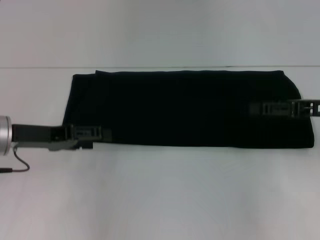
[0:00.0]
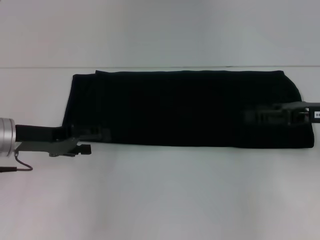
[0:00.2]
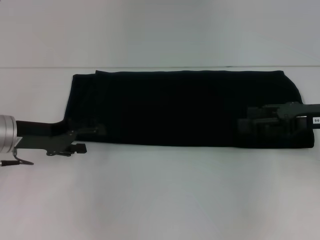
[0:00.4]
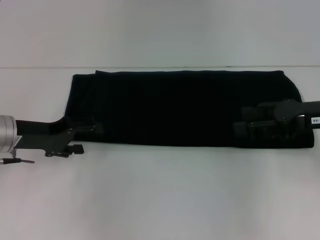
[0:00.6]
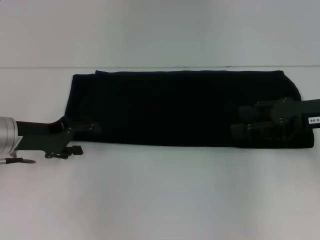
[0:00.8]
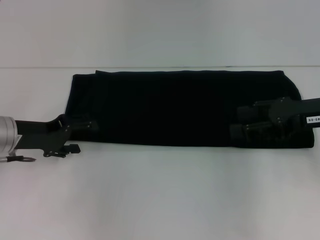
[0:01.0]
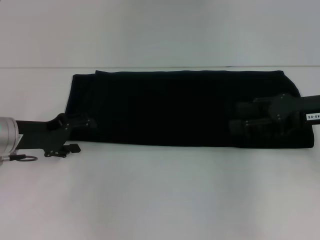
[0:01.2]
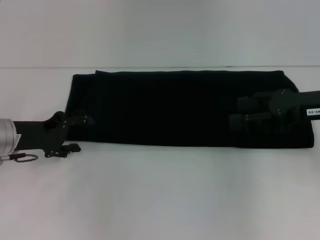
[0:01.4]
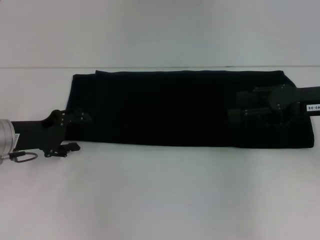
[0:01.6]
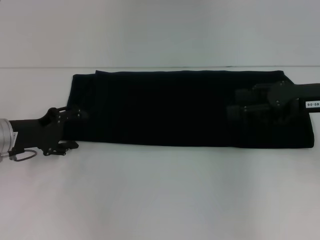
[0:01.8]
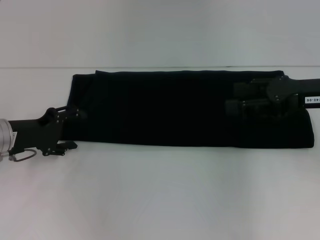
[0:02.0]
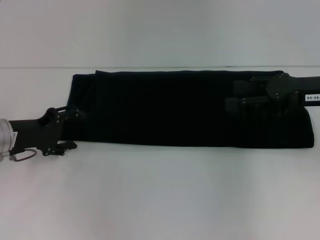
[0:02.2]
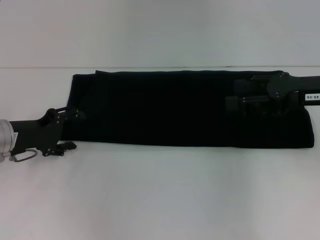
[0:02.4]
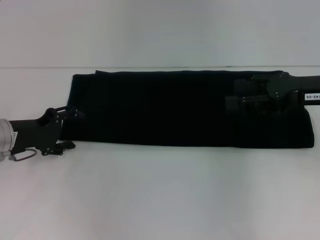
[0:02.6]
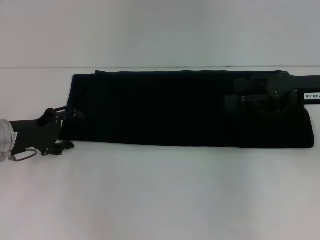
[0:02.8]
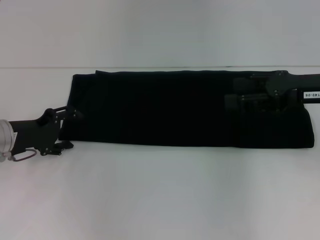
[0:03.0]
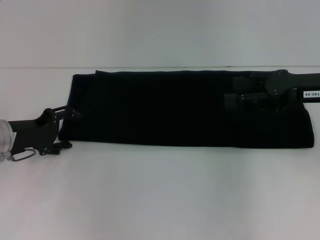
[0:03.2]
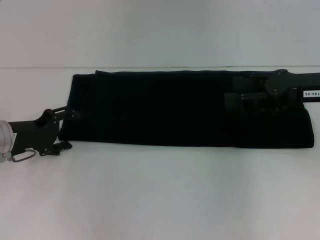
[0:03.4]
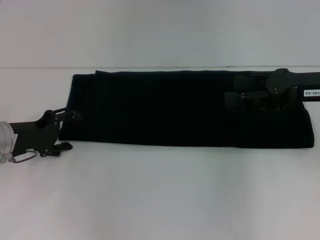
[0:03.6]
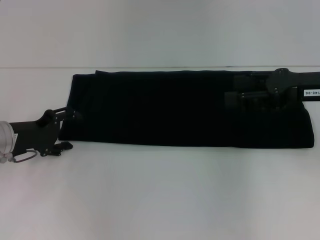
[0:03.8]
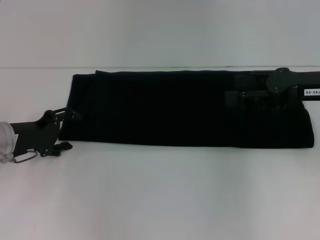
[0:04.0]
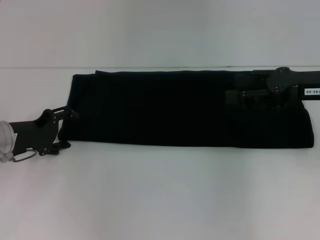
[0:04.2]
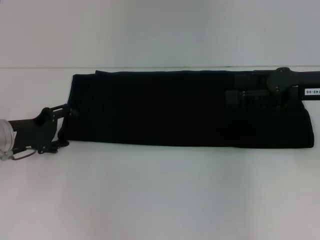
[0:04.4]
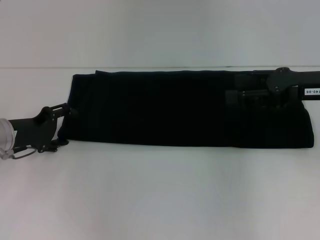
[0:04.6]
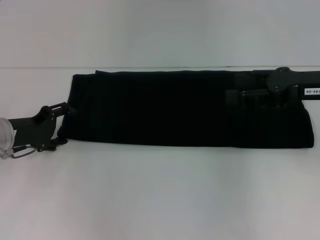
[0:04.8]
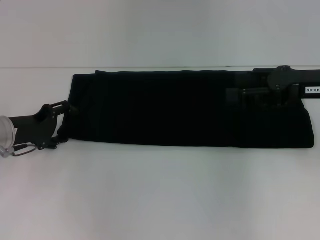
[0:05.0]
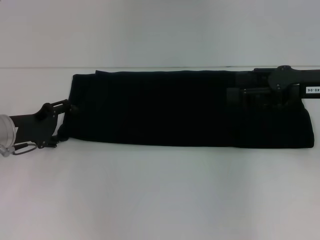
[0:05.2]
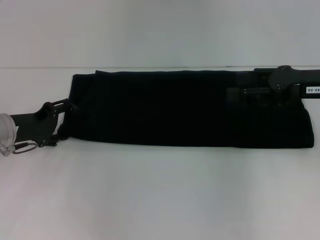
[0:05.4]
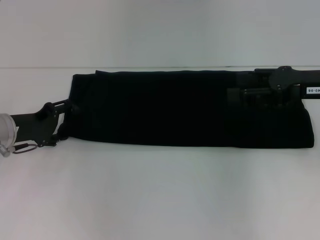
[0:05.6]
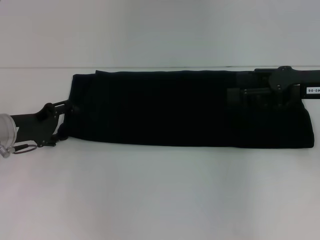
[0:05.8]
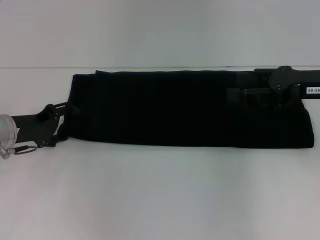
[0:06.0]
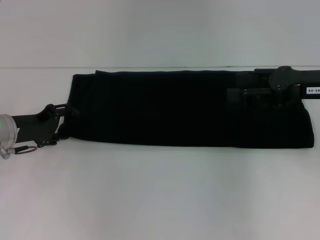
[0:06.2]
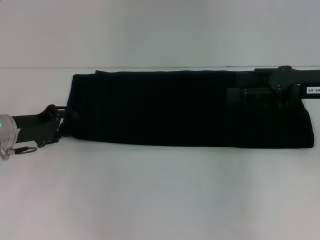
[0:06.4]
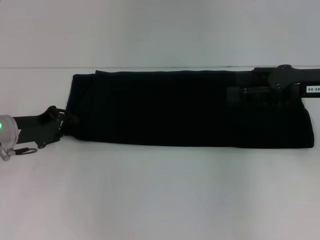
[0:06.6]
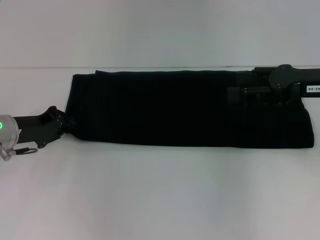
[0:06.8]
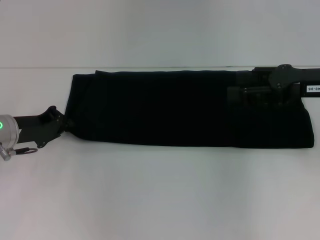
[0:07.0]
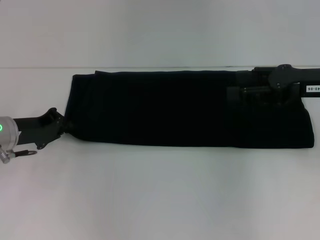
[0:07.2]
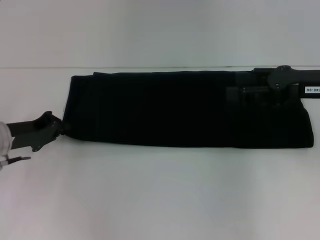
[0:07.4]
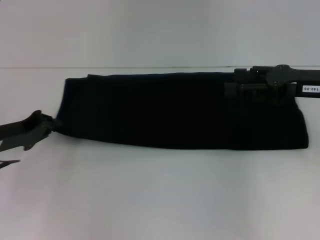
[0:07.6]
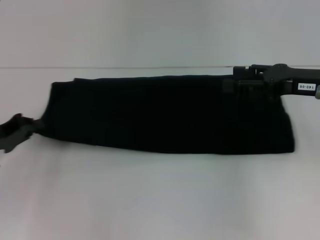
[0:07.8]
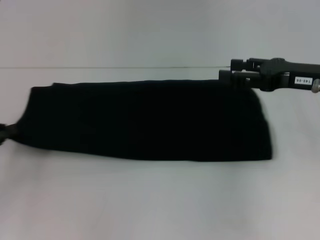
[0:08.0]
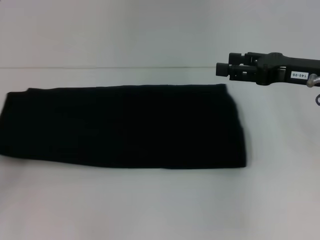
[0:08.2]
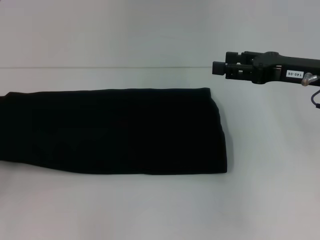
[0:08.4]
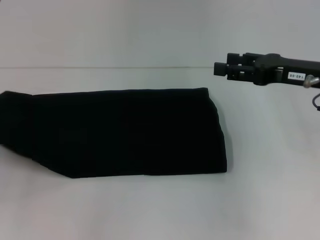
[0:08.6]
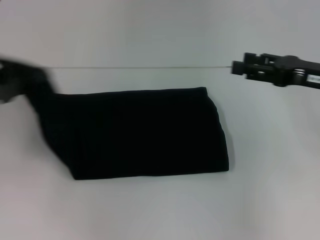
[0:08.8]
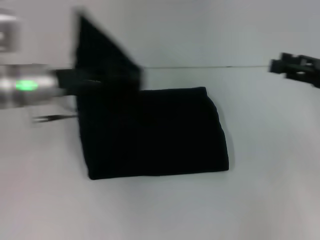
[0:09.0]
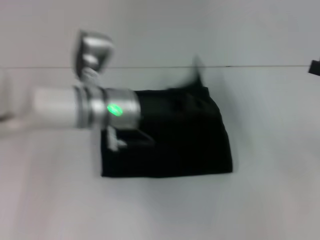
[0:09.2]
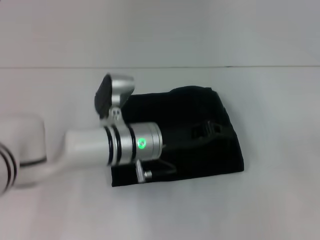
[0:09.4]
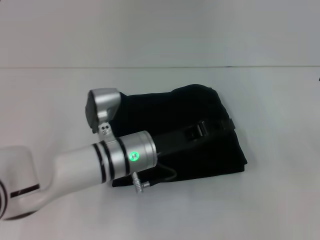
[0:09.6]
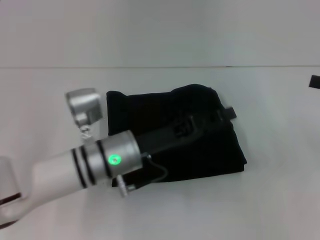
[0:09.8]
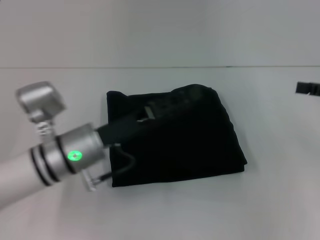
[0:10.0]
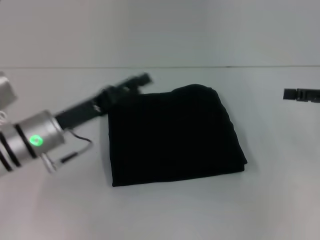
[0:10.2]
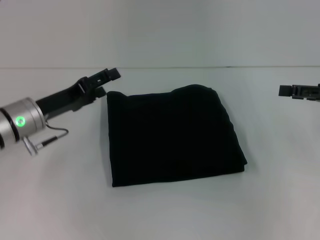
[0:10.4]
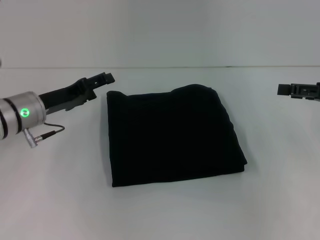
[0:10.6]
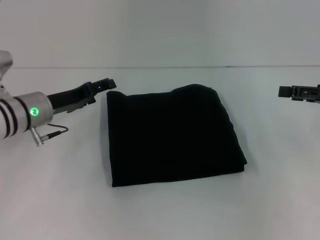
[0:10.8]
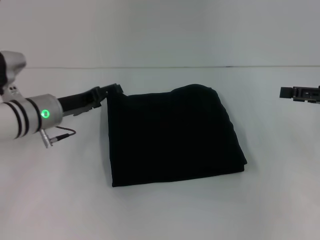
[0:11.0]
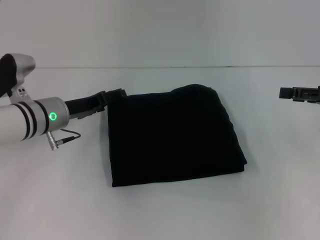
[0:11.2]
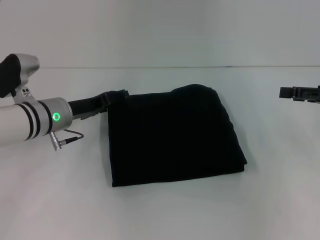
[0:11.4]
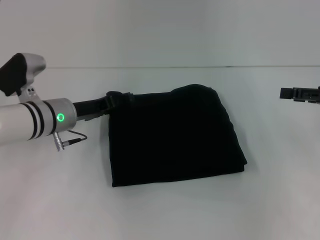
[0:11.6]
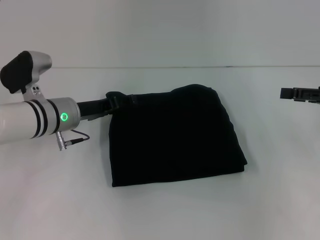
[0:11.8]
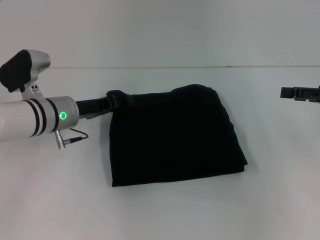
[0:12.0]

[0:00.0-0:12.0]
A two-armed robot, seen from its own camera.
Step, 0.0 to 9.8 s: Fold the clothes with your left hand.
1.6 to 3.0 s: The grippers move only a little.
3.0 to 4.4 s: Neither gripper changes place.
4.4 to 6.0 s: The grippers make only small movements.
6.0 to 7.6 s: The left gripper closes.
7.6 to 9.0 s: The right gripper goes some 5 cm to the right. Meanwhile the left gripper goes about 15 cm to the right and upward.
9.0 to 10.4 s: The left gripper heads downward, covering roughly 5 cm, moves approximately 15 cm to the right and comes back, and opens up.
10.4 to 12.0 s: The left gripper ends up roughly 5 cm from where it was.

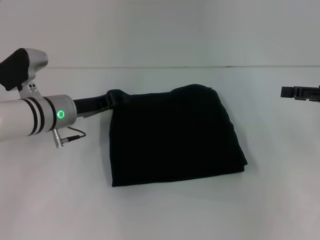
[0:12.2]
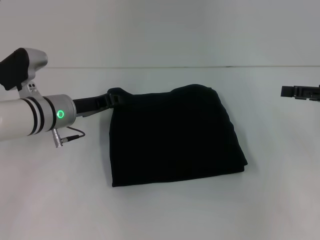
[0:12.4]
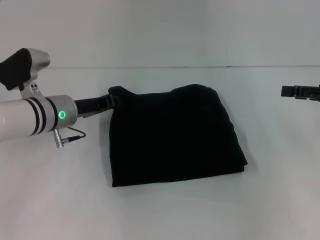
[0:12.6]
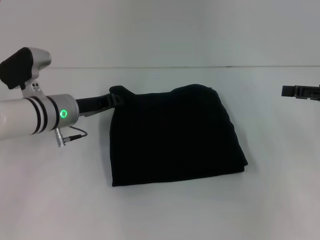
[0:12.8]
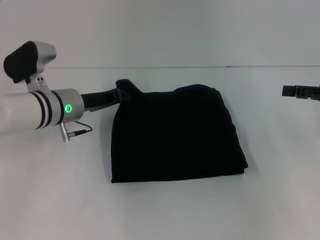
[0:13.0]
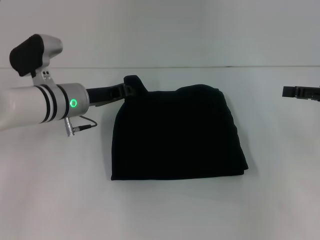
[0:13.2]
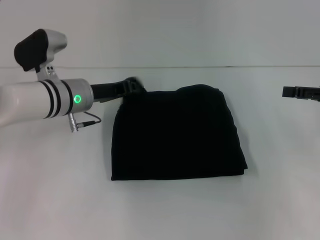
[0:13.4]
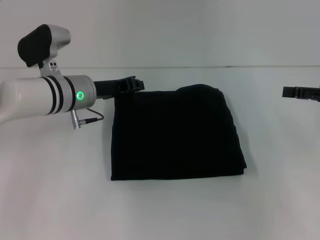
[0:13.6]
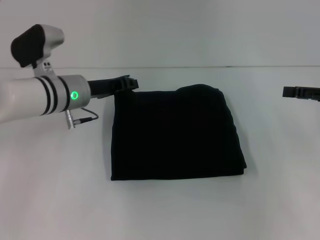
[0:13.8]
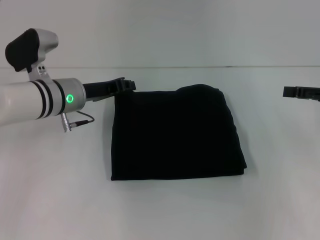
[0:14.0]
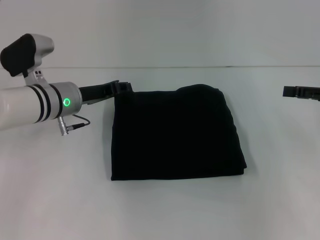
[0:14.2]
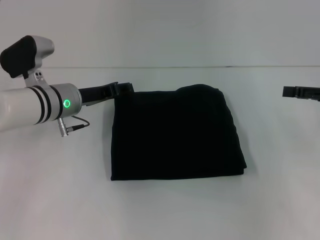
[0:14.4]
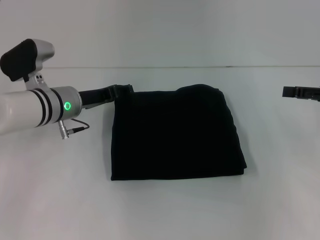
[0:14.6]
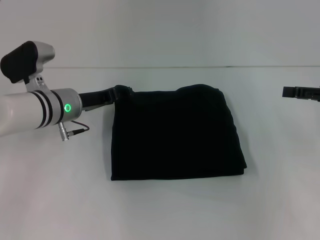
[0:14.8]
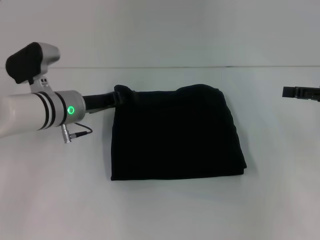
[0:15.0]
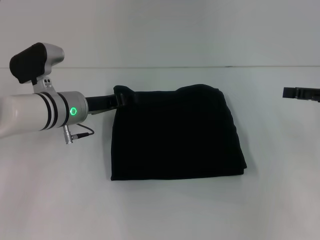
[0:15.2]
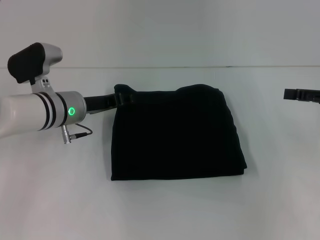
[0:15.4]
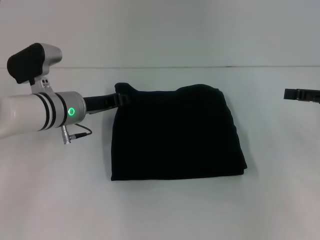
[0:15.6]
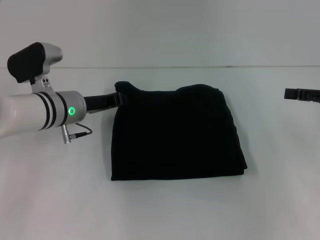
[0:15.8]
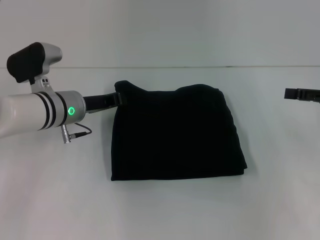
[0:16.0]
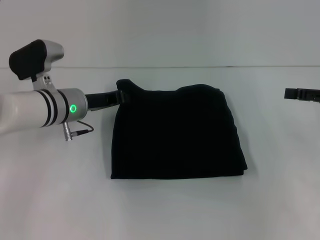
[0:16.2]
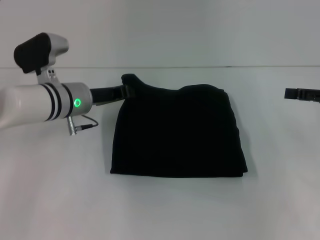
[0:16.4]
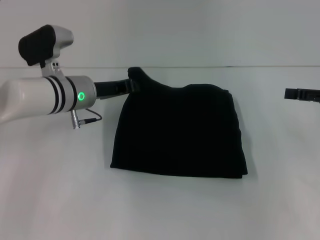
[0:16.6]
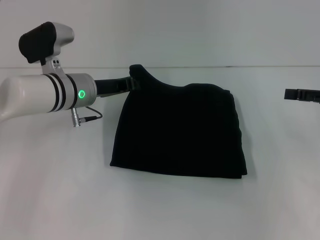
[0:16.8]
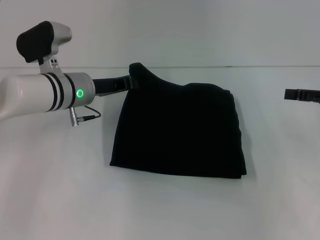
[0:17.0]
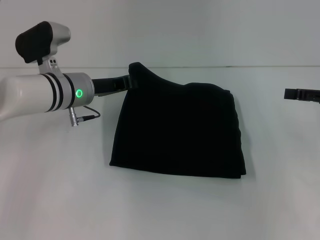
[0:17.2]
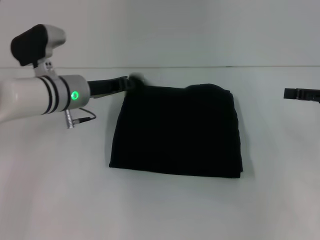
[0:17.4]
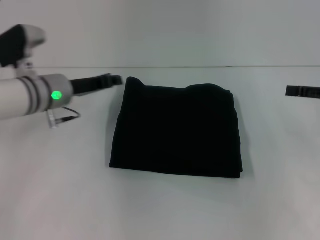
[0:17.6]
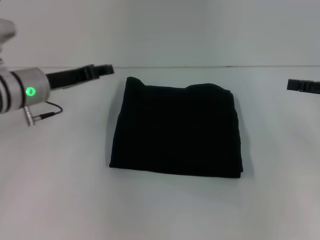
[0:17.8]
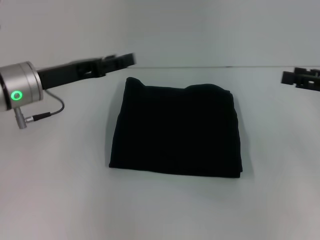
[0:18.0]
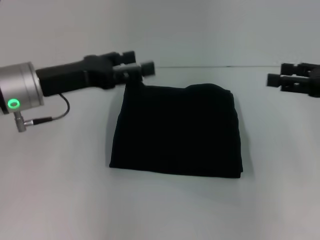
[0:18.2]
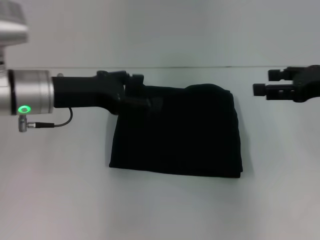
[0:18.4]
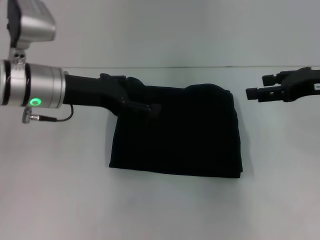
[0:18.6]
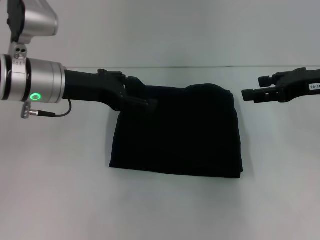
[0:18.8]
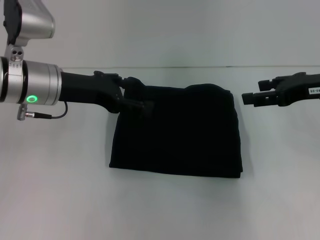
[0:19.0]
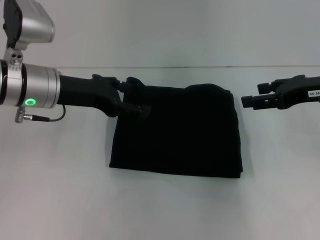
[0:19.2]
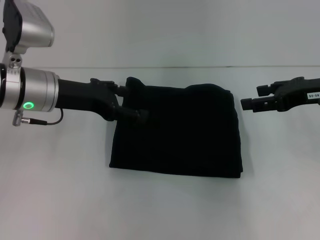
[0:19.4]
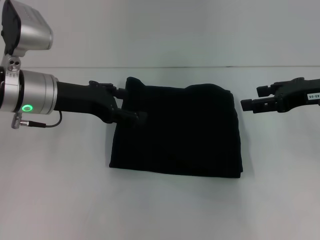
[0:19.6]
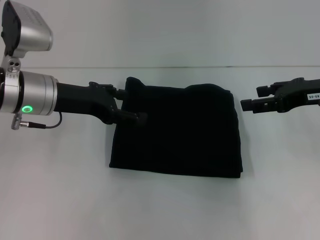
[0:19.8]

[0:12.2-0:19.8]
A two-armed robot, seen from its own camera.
12.2 to 13.8 s: The left gripper closes up.
13.8 to 15.2 s: The left gripper opens up.
15.2 to 16.8 s: The left gripper closes its fingers.
16.8 to 18.2 s: The left gripper goes some 10 cm backward, upward and to the left, and opens. Meanwhile the right gripper shifts by some 5 cm.

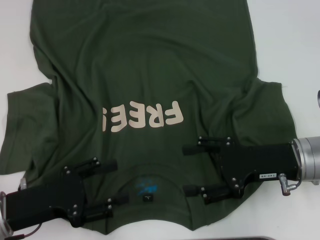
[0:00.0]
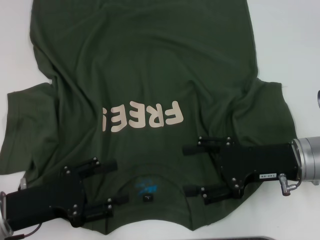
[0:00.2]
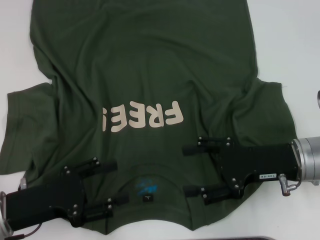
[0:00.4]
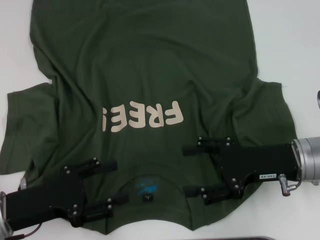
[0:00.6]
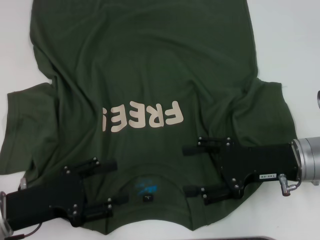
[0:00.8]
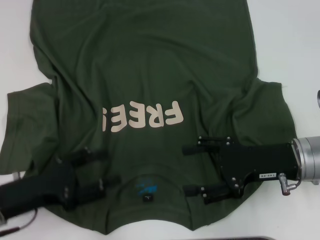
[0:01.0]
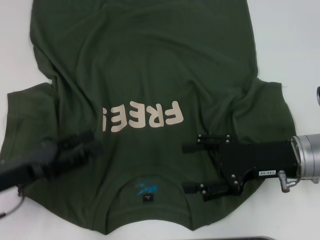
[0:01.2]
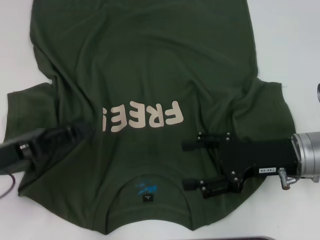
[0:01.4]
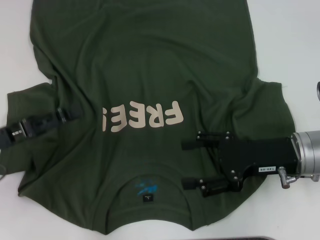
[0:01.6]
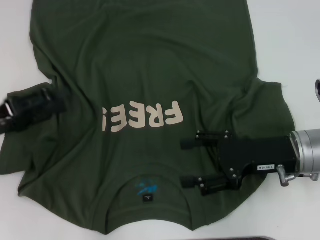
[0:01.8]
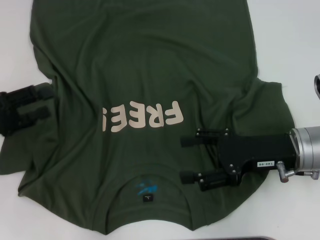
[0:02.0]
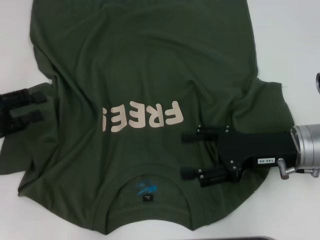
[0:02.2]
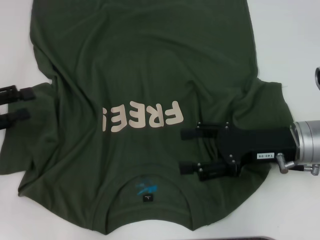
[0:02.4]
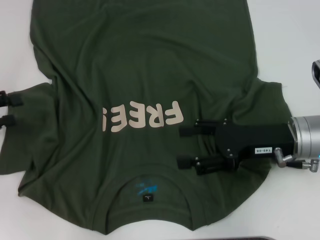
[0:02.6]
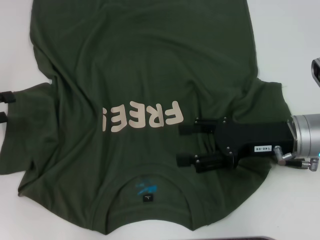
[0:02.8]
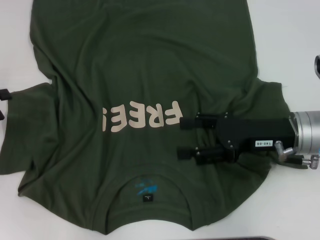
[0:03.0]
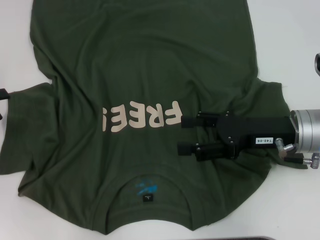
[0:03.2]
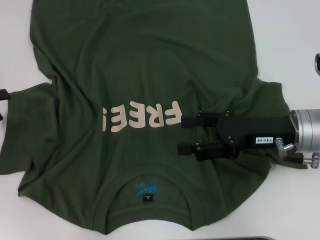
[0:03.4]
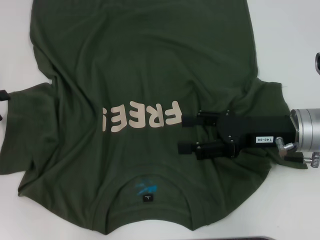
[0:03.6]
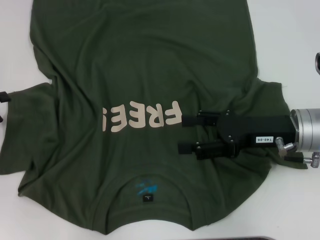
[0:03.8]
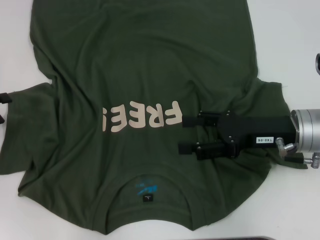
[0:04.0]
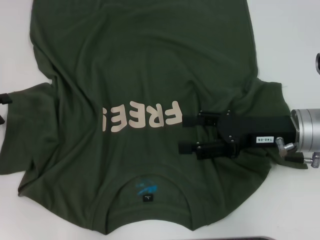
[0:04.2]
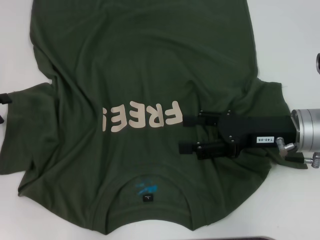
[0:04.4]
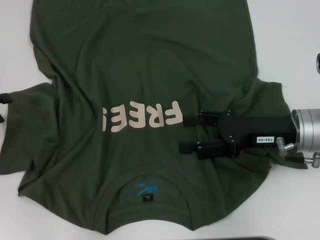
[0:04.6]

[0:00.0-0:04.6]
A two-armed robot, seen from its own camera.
0.0 to 1.6 s: The left gripper moves forward, about 5 cm.
1.6 to 3.0 s: The left gripper shifts approximately 10 cm to the left.
3.0 to 4.6 s: The grippers make only small movements.
